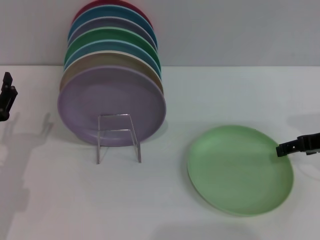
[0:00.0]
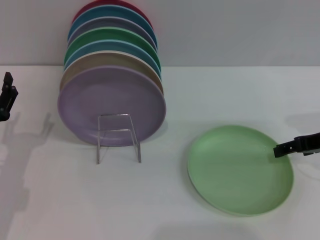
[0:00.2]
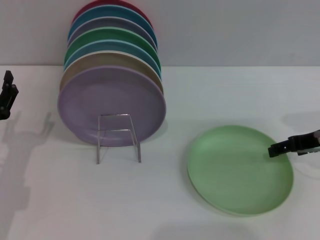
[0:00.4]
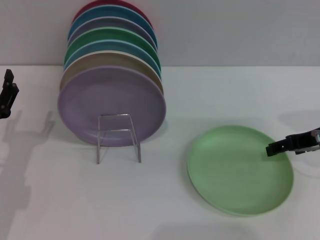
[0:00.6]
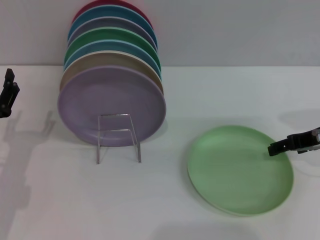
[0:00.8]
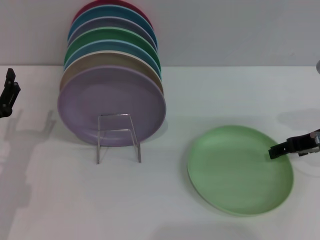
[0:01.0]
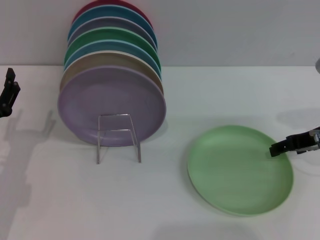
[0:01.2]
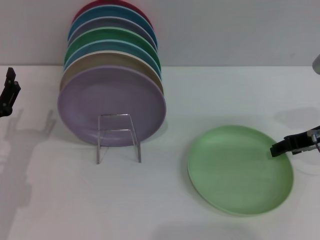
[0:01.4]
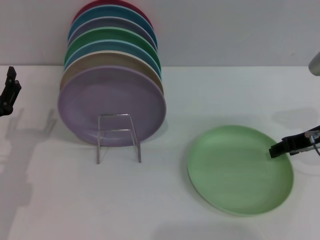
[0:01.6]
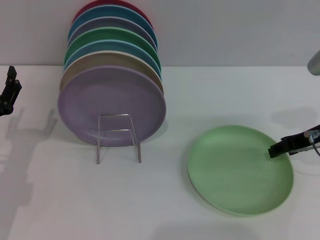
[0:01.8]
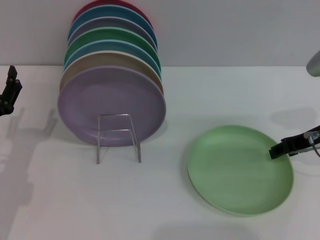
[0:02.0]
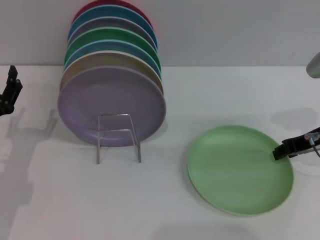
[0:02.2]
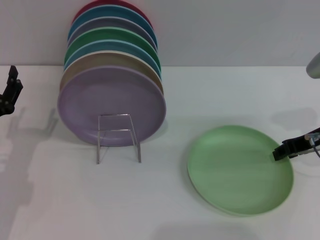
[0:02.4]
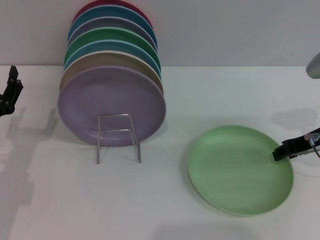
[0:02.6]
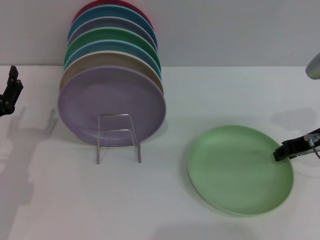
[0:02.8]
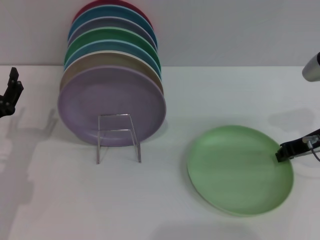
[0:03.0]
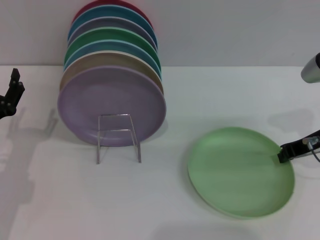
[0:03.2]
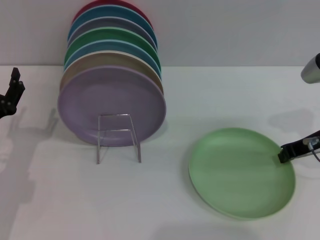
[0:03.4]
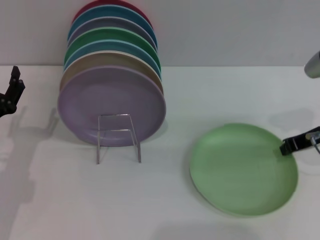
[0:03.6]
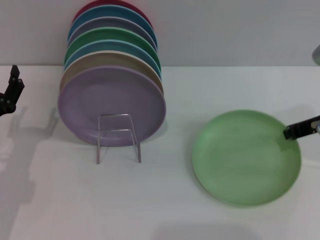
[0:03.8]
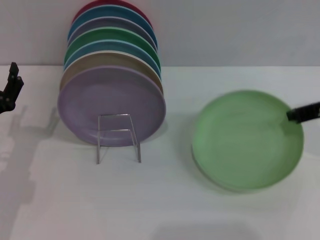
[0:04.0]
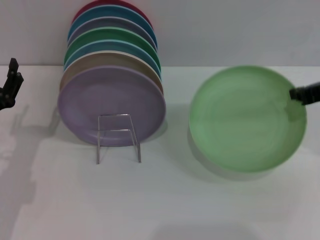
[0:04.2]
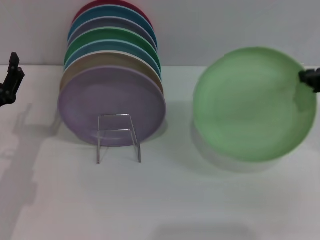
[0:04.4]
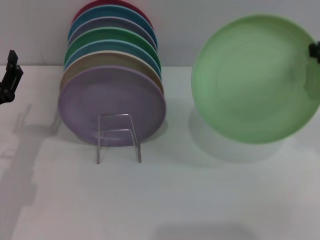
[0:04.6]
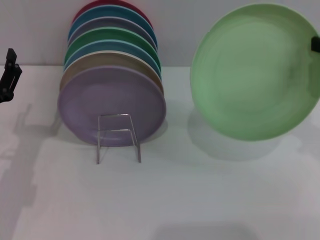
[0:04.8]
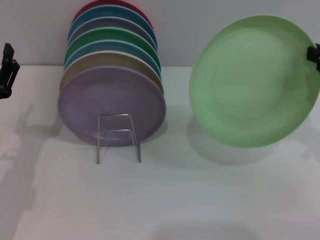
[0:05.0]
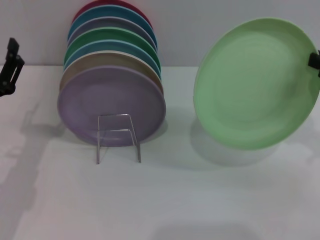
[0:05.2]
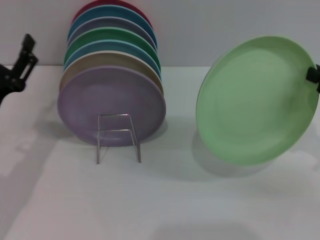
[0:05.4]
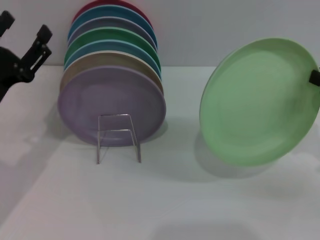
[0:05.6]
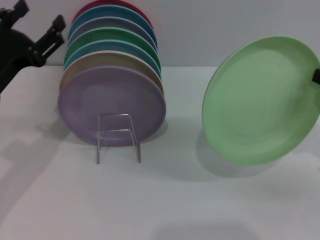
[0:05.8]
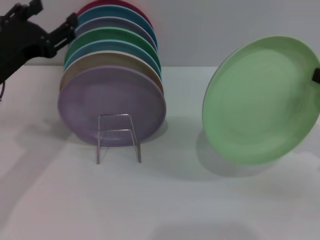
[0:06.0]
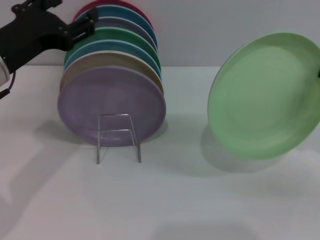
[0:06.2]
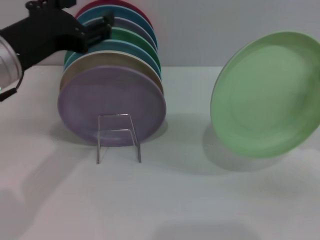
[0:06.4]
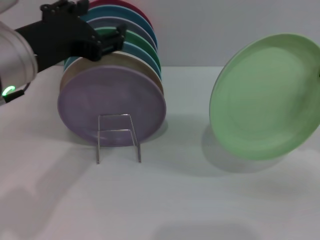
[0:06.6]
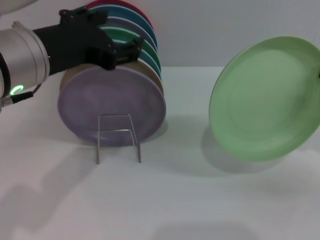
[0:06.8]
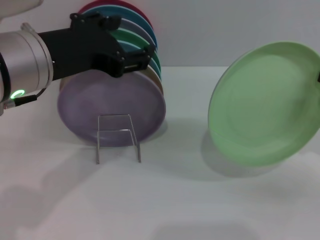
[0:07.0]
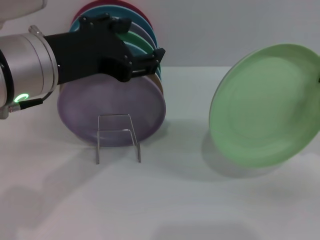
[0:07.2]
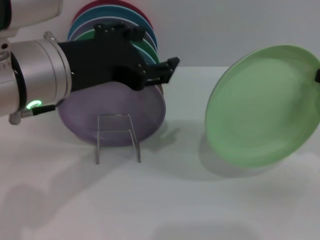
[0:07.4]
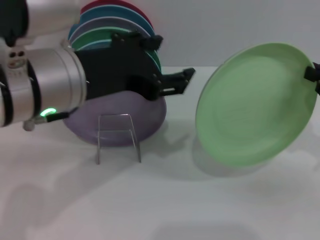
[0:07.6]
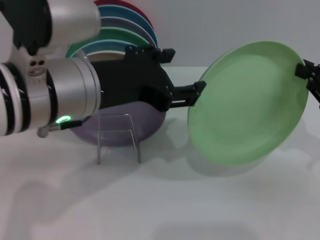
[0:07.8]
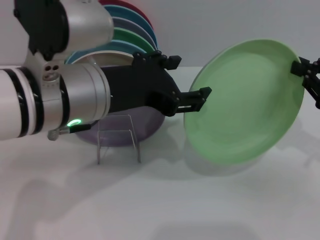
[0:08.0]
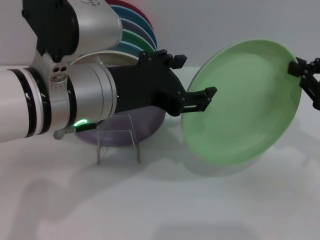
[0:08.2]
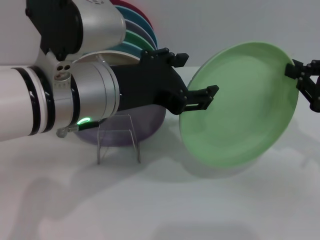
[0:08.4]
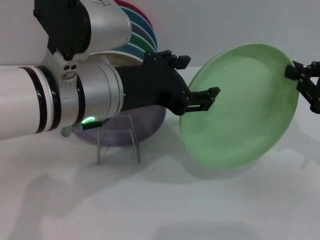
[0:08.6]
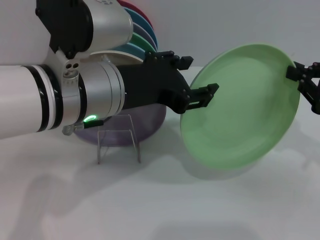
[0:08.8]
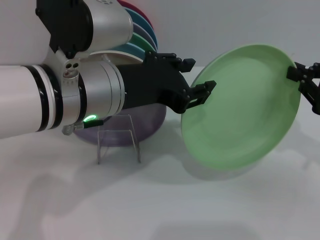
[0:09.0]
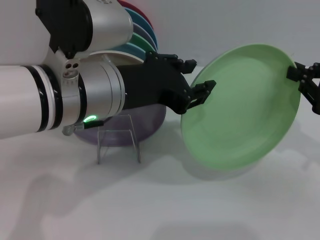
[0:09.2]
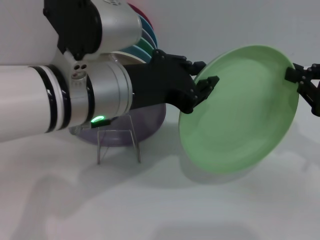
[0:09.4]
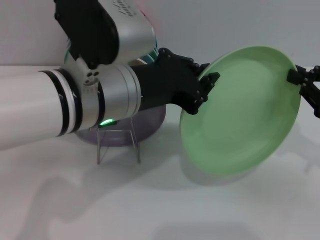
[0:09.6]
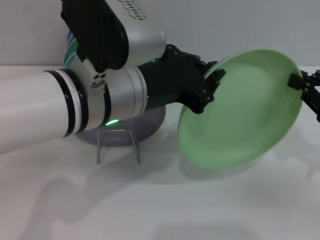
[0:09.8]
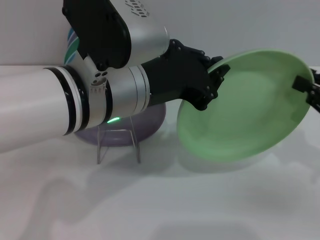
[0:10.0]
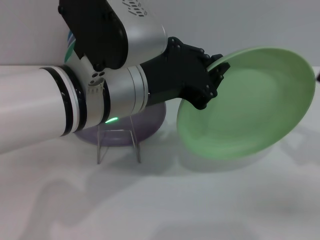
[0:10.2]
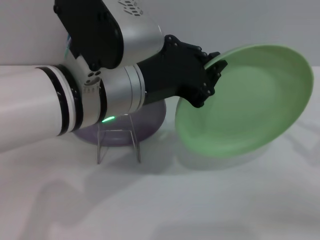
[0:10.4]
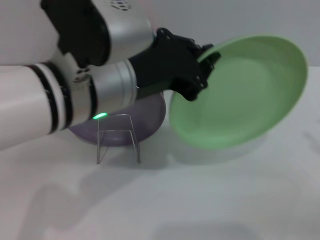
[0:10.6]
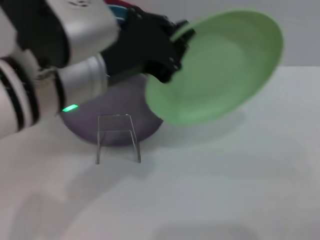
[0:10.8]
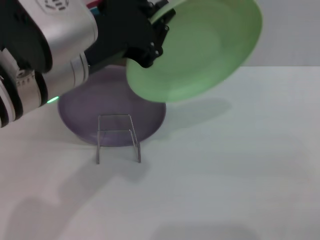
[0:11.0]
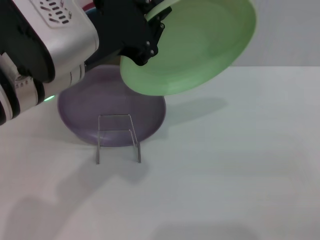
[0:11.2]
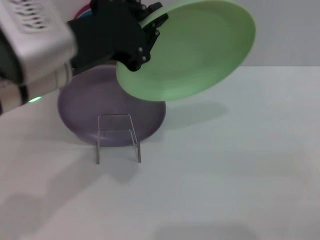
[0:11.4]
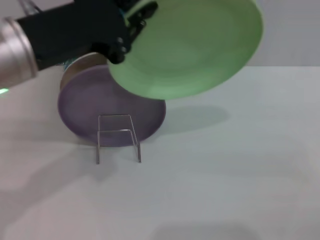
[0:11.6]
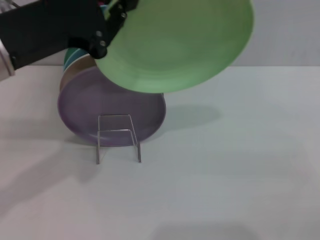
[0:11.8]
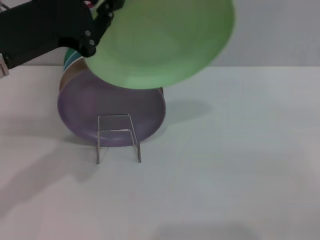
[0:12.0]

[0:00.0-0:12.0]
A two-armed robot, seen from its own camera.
Task of the whole recording: Grip the plate with one hand, pass it to the other, then set it on the shelf.
Step, 0:00.0 to 0:06.0: Pick up the plate with the right gripper.
Step, 0:06.2 to 0:10.8: Pass the plate from the right gripper to the left gripper.
0:00.0 to 0:01.6: The grippers make only small movements.
0:01.6 to 0:03.0: The right gripper closes its fingers.
0:03.0 to 0:04.4: The right gripper shifts roughly 10 cm upward.
0:04.4 to 0:06.0: The left gripper is displaced upward by some 10 cm. Meanwhile the right gripper heads downward and to the right, covering approximately 10 cm.
0:06.0 to 0:07.6: The left gripper is displaced to the right and upward by about 15 cm.
0:09.0 to 0:10.4: The right gripper moves backward, roughly 5 cm, and opens, while the left gripper closes.
0:10.4 to 0:12.0: The left gripper goes approximately 10 cm to the left.

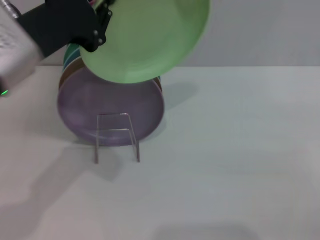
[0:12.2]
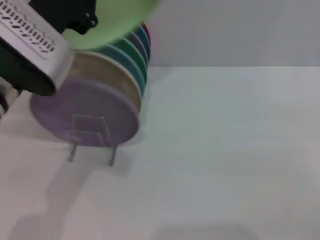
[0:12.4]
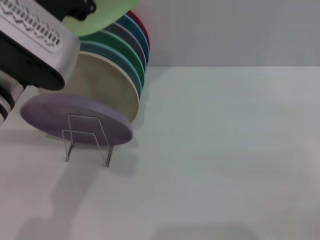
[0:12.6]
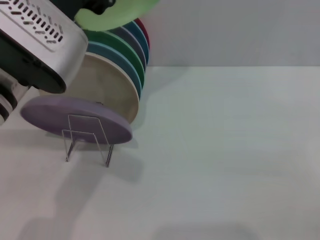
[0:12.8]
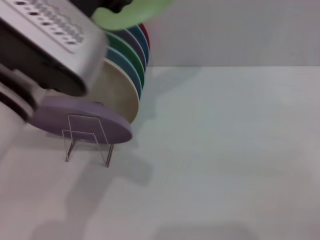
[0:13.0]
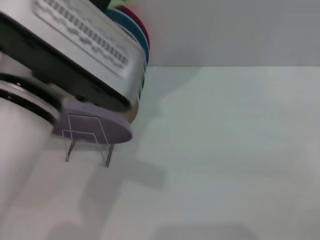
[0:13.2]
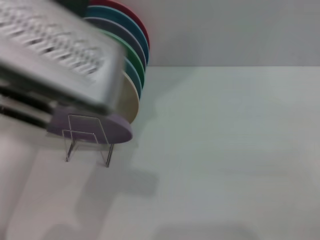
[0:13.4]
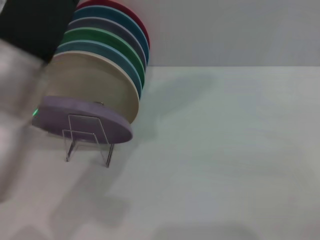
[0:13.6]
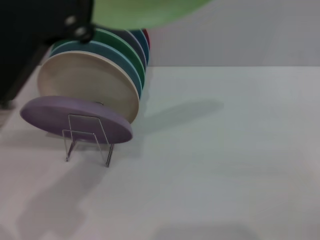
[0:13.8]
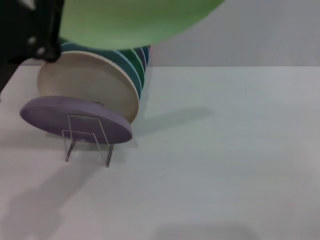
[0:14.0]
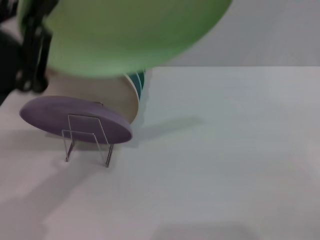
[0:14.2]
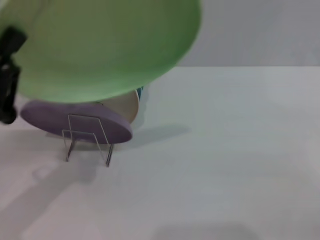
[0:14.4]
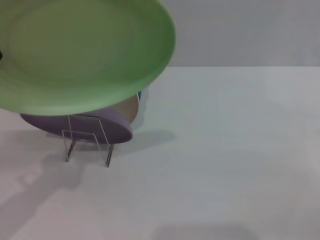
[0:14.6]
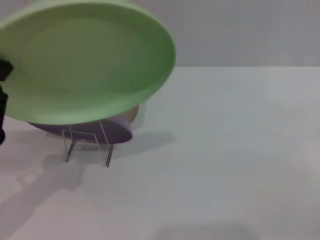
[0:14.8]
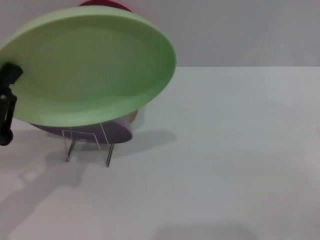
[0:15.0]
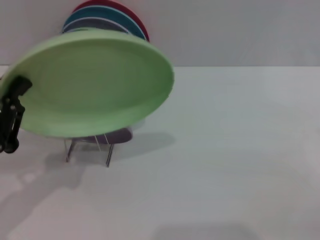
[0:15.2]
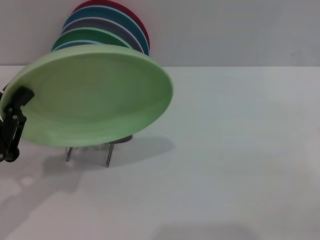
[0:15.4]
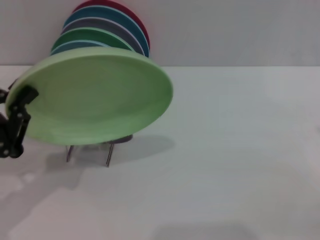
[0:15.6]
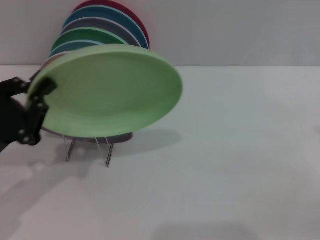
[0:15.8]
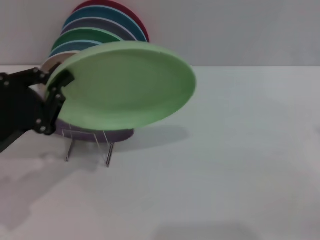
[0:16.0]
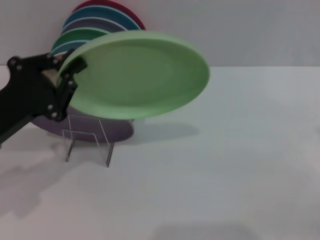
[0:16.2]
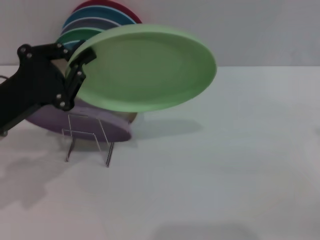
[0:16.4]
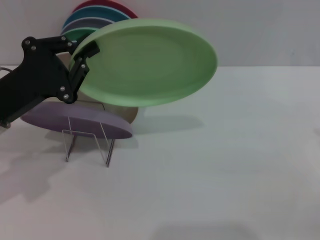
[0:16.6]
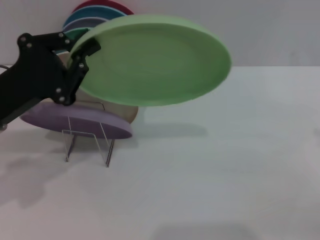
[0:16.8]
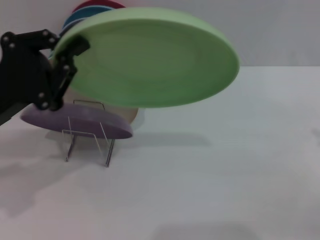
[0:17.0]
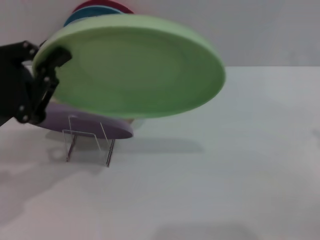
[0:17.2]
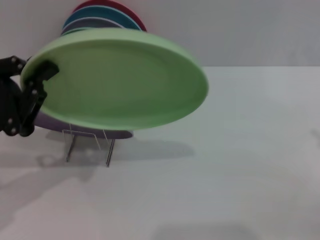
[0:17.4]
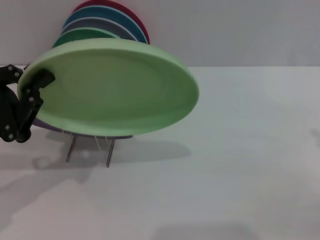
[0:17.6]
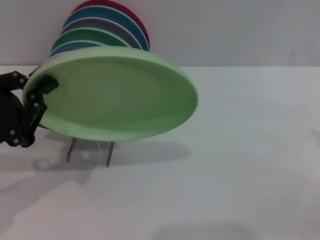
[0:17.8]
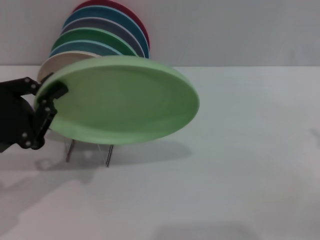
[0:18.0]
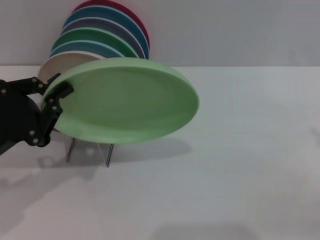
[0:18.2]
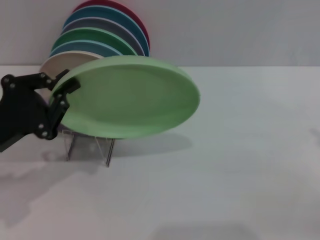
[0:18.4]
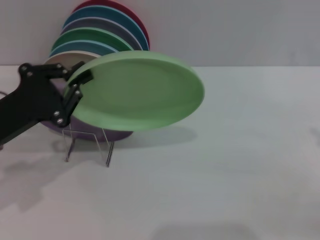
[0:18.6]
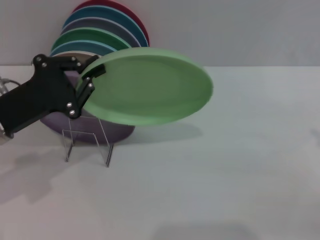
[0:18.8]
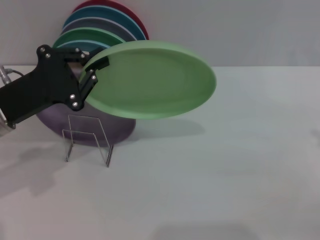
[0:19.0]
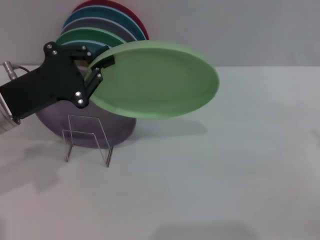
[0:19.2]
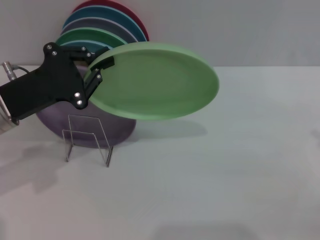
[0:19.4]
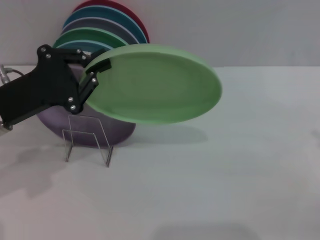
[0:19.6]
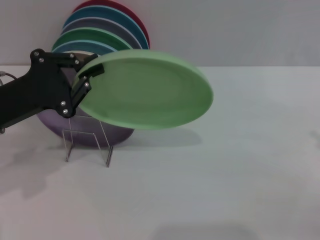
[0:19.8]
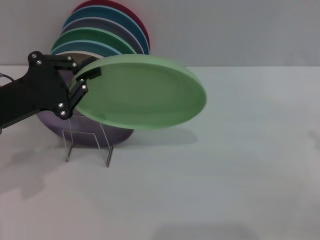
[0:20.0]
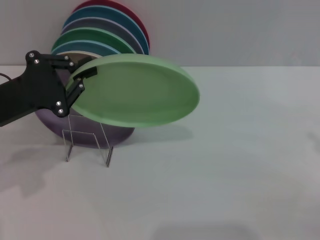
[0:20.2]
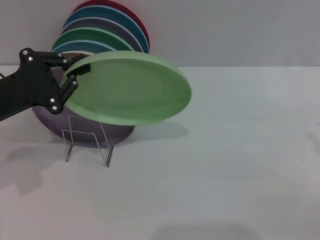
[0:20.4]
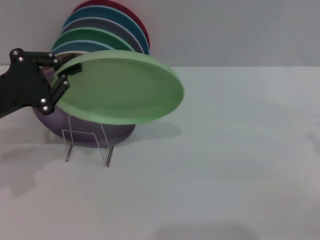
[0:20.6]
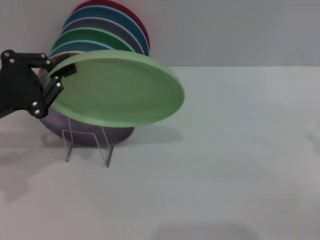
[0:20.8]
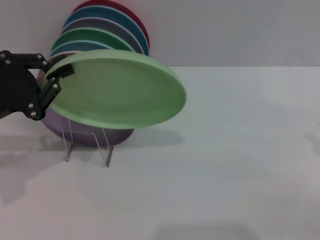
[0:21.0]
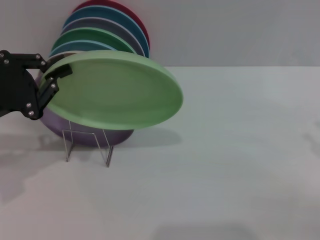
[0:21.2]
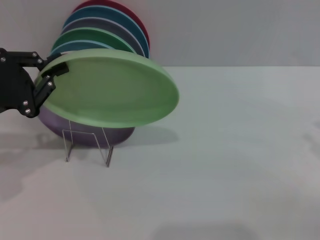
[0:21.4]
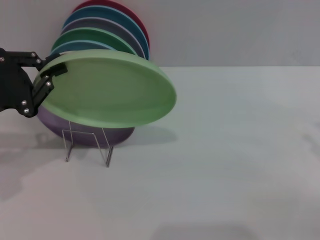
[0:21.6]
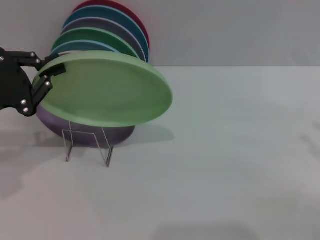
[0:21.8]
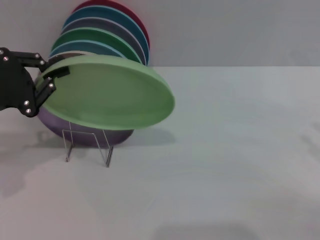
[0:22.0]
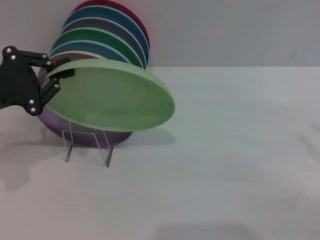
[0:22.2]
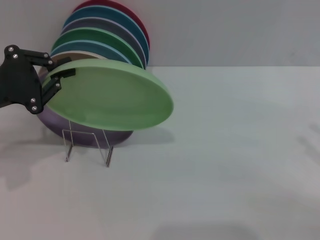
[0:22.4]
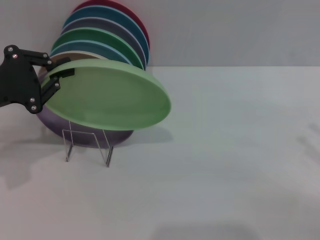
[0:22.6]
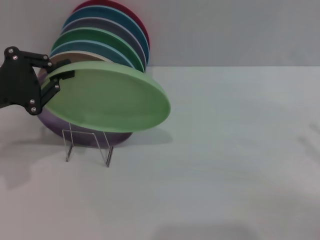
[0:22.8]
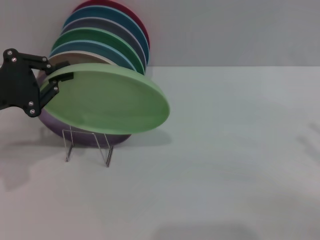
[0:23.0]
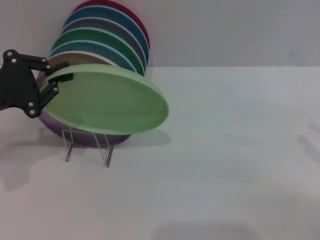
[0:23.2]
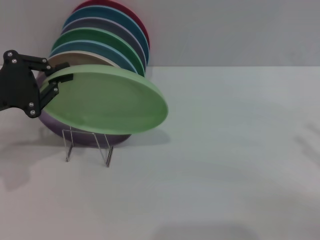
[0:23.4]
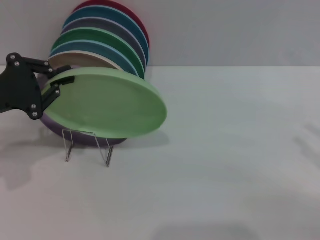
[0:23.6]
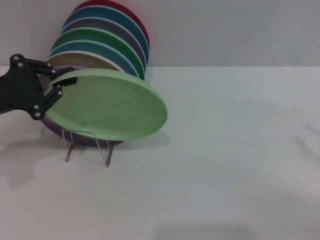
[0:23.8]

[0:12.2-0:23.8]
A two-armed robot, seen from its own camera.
Task of the whole recording: Grip the plate with one hand, pass it to the other, then set it on the shelf.
0:12.2 to 0:13.6: The left gripper heads backward, covering roughly 5 cm.
0:13.6 to 0:15.0: The left gripper travels to the left and downward by about 20 cm.
0:15.0 to 0:16.6: The left gripper is displaced forward by about 10 cm.
0:16.6 to 0:18.0: The left gripper travels backward by roughly 5 cm.
0:18.0 to 0:19.4: The left gripper is displaced forward by about 5 cm.
0:19.4 to 0:21.0: The left gripper moves about 5 cm.
0:21.0 to 0:22.4: The grippers stay close to where they were, moving slightly.
0:22.4 to 0:23.8: The two grippers keep their place.
